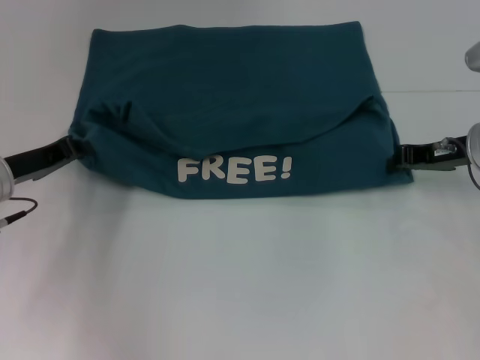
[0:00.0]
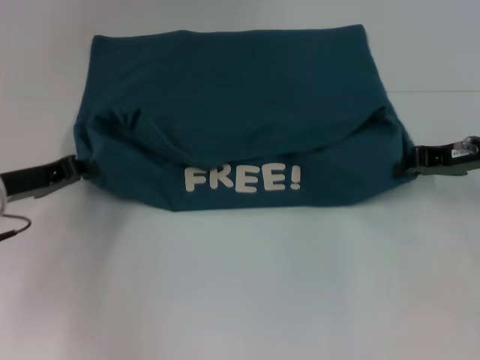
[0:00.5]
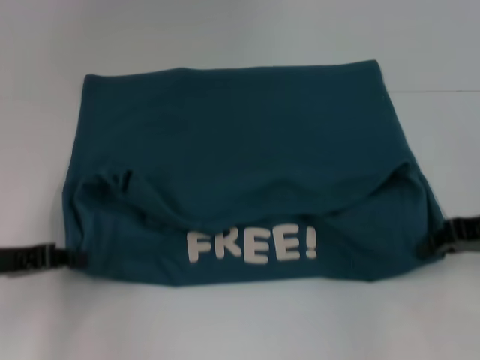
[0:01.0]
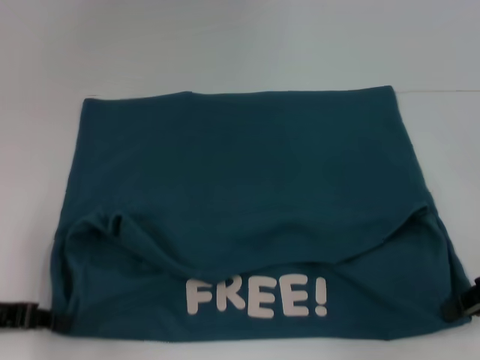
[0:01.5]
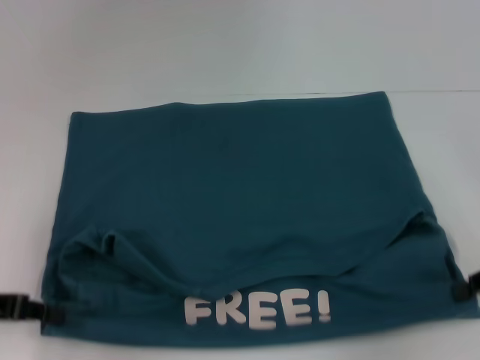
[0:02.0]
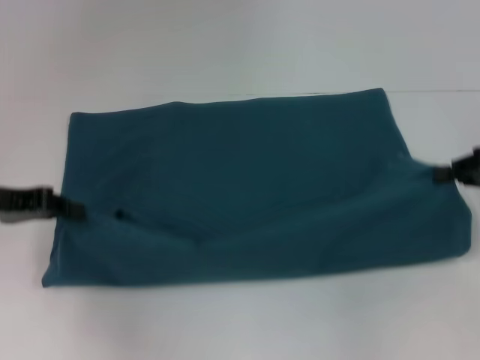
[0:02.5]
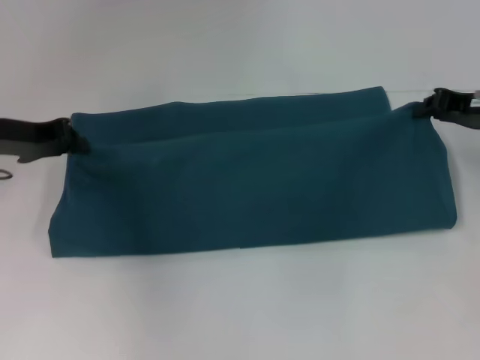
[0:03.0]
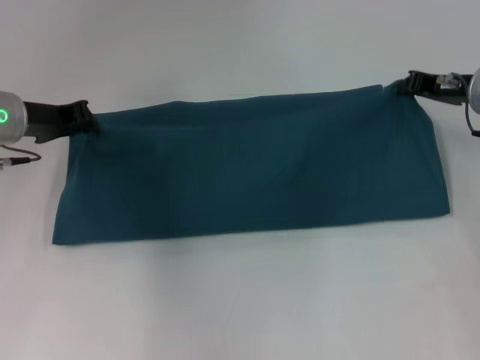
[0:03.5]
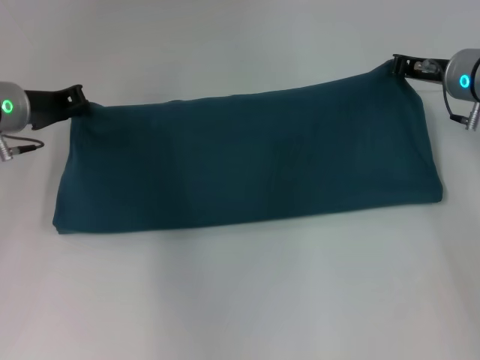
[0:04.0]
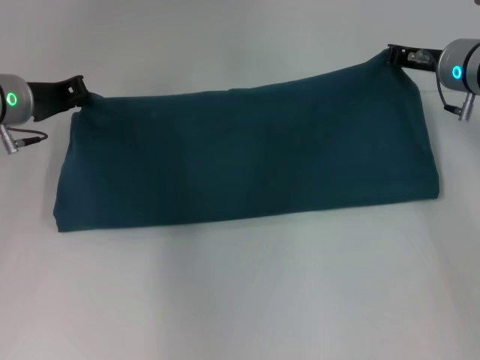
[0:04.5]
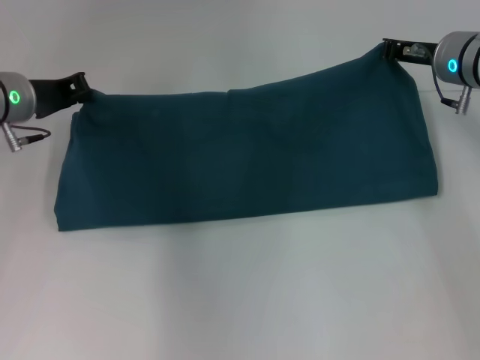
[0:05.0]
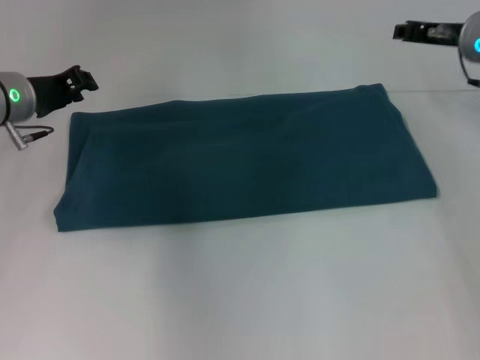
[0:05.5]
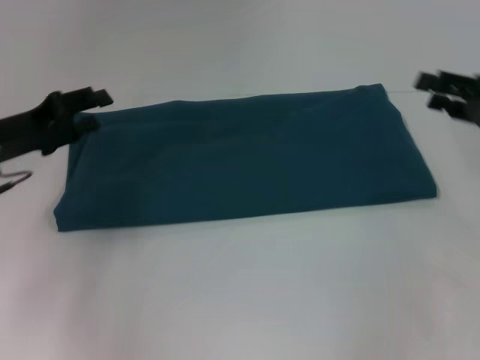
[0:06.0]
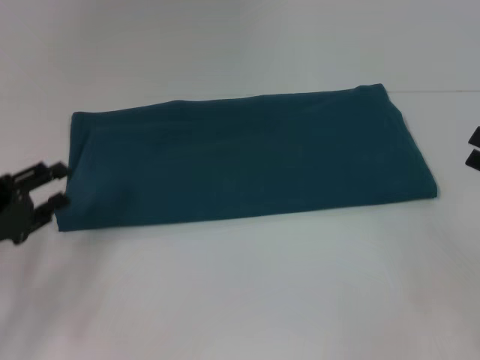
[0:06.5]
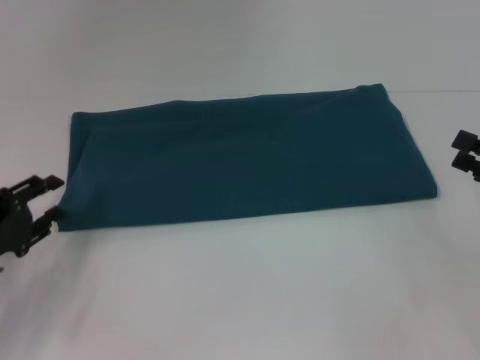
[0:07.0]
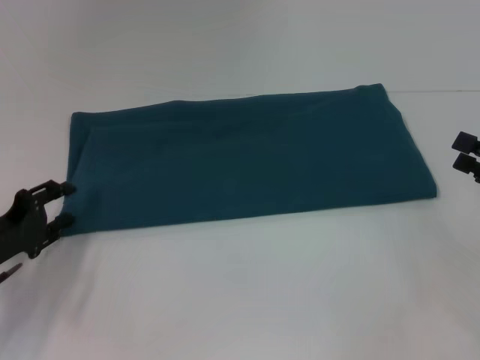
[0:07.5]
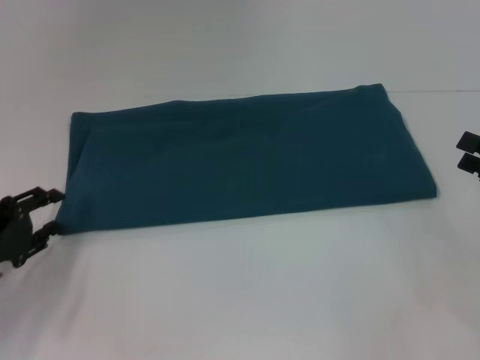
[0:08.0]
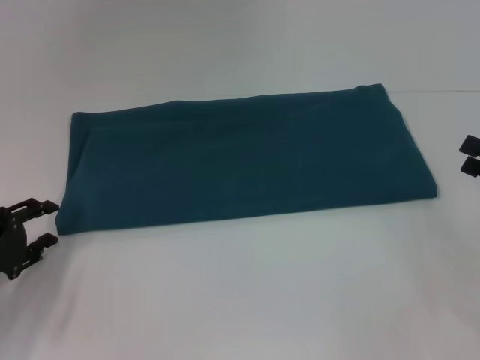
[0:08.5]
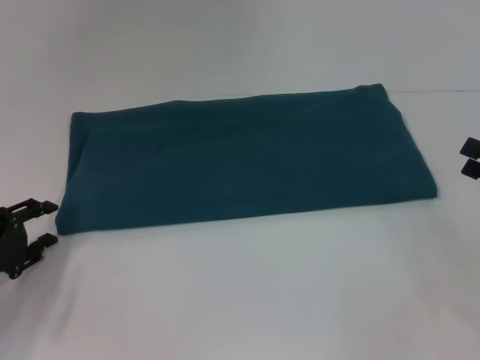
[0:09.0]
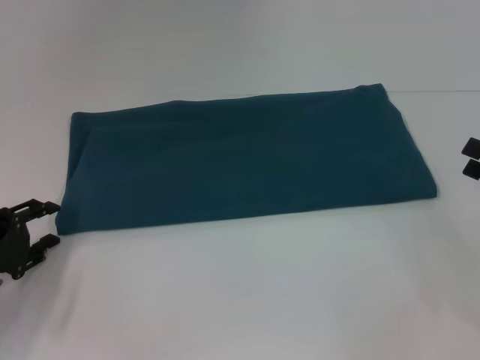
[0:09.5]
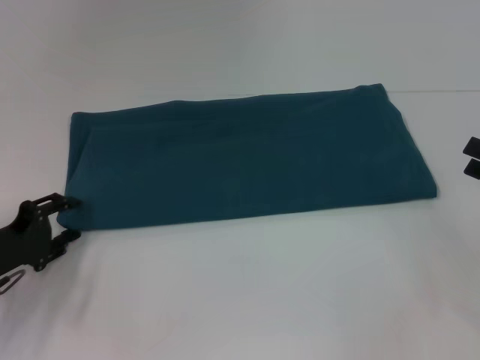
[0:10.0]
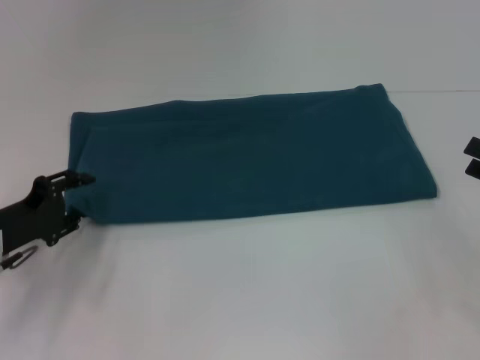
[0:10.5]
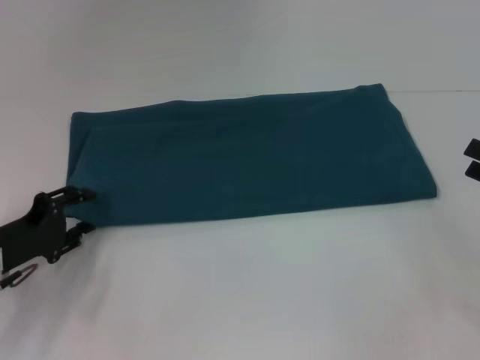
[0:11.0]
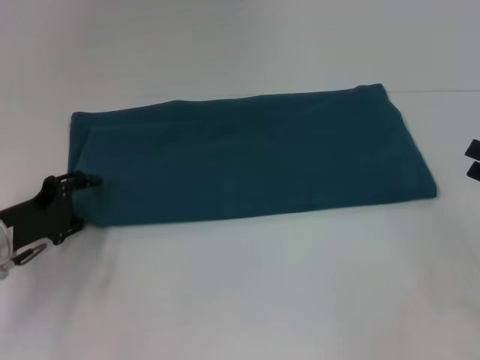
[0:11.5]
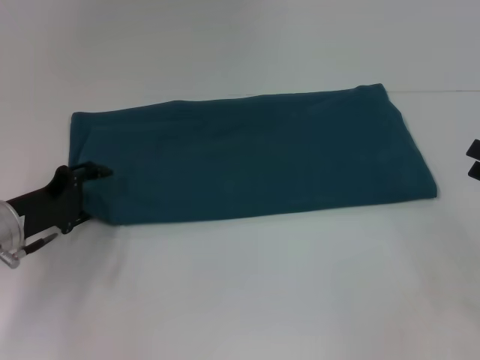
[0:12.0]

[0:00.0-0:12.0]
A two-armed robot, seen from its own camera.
Step, 0:02.0 to 0:05.0: Fold the clothes to the right.
0:00.0 to 0:02.0: The right gripper travels backward and to the right by roughly 15 cm. The left gripper travels backward by roughly 10 cm.
0:02.0 to 0:04.0: The right gripper shifts some 20 cm forward and to the left. Meanwhile the left gripper goes about 15 cm forward.
0:04.0 to 0:06.0: The right gripper is displaced backward and to the right by some 15 cm, and opens, while the left gripper heads backward, covering some 5 cm, and opens its fingers.
0:06.0 to 0:08.0: The right gripper moves backward, some 10 cm. Meanwhile the left gripper shifts roughly 10 cm backward and downward.
0:08.0 to 0:10.0: The grippers make only small movements.
0:10.0 to 0:12.0: The left gripper moves about 5 cm.

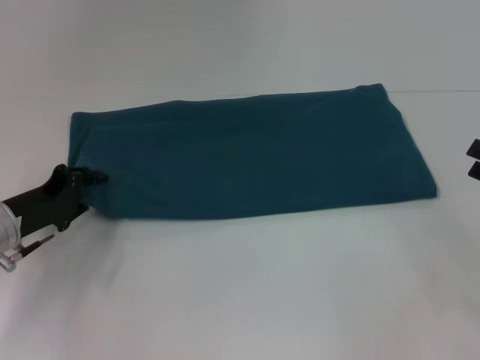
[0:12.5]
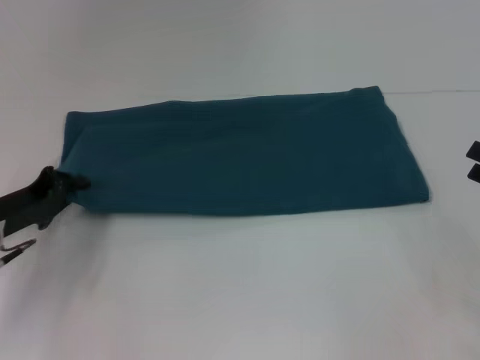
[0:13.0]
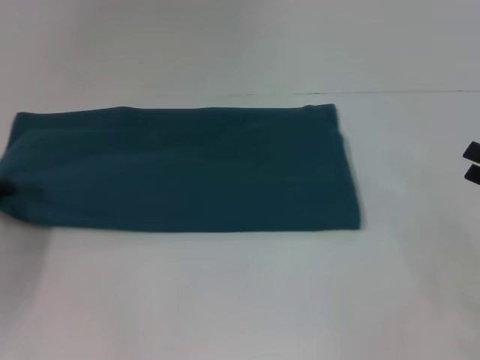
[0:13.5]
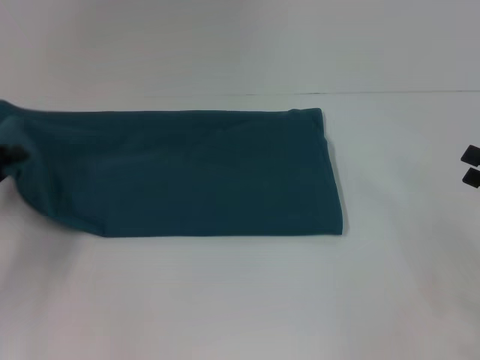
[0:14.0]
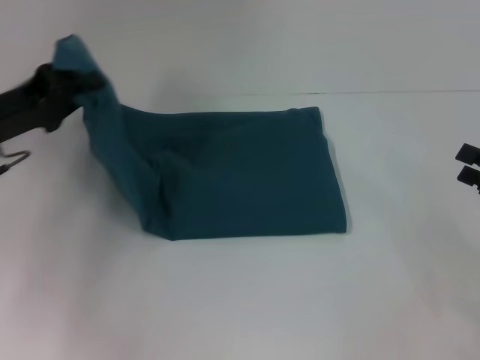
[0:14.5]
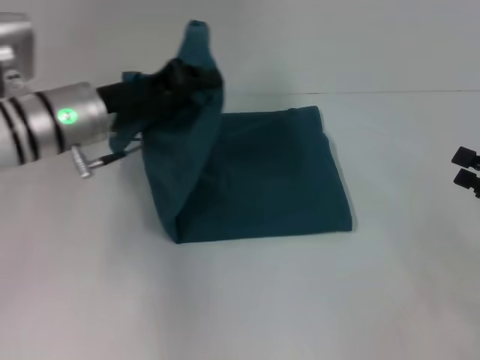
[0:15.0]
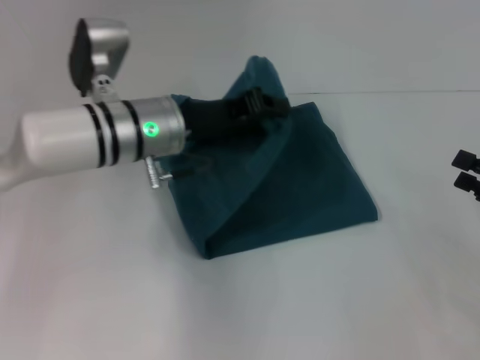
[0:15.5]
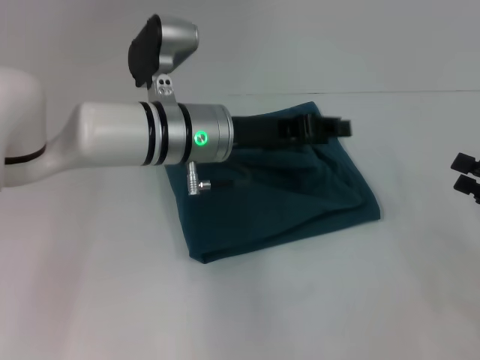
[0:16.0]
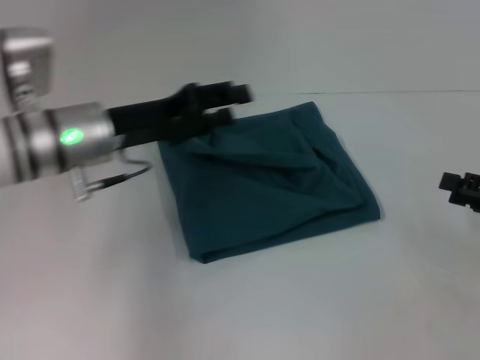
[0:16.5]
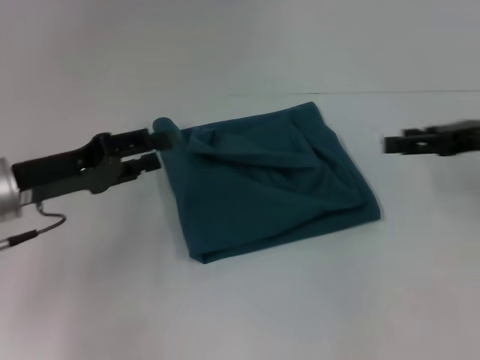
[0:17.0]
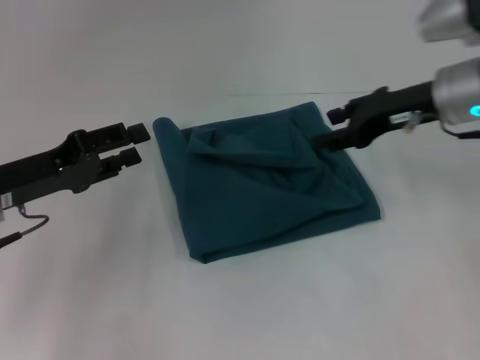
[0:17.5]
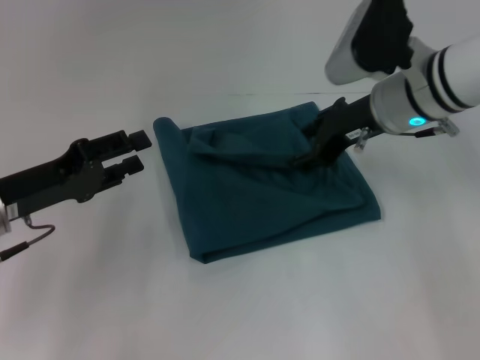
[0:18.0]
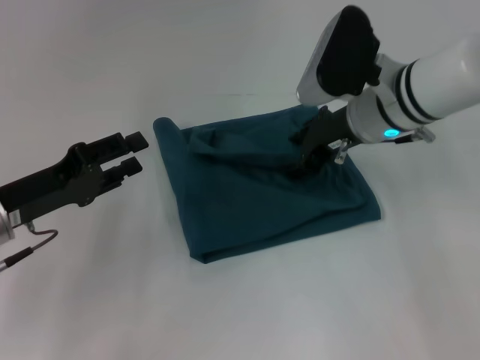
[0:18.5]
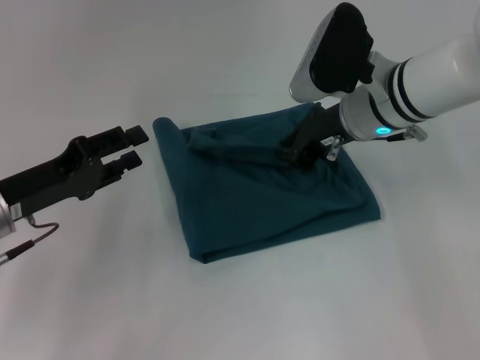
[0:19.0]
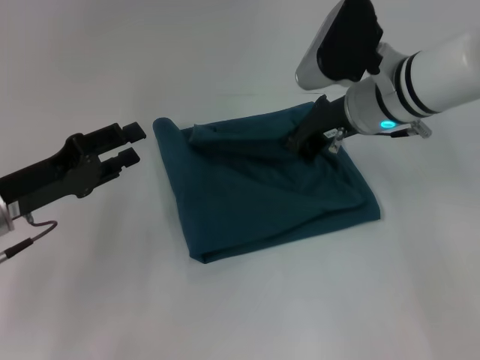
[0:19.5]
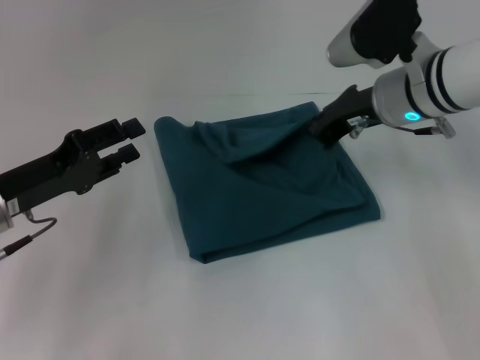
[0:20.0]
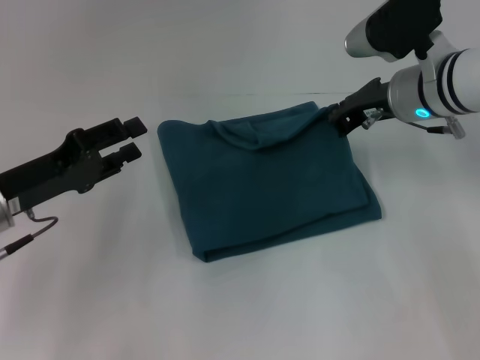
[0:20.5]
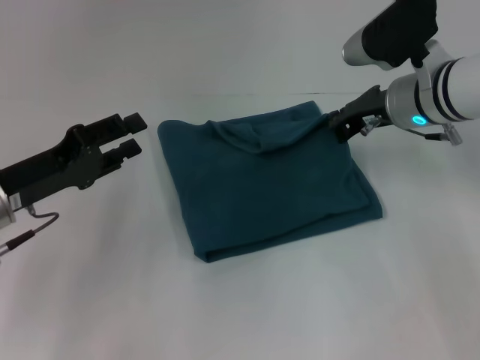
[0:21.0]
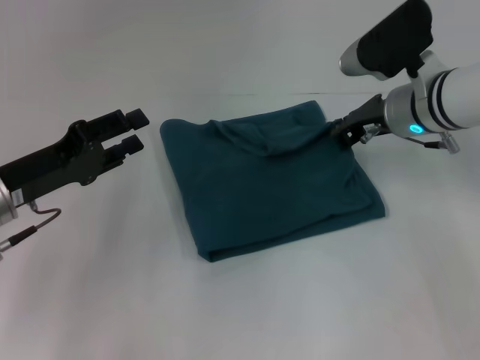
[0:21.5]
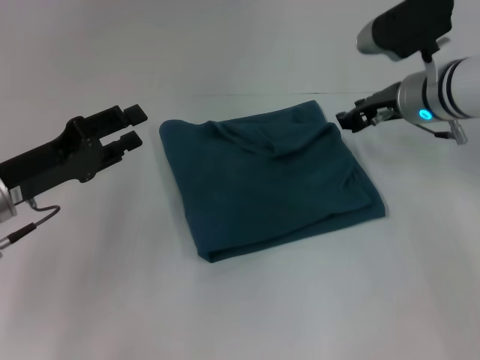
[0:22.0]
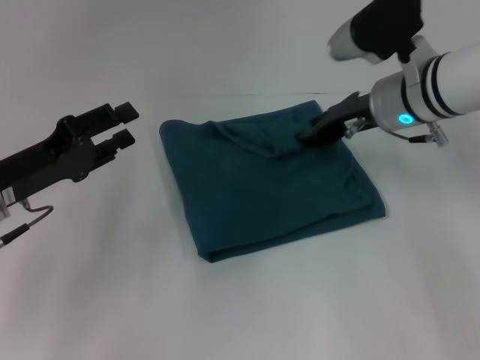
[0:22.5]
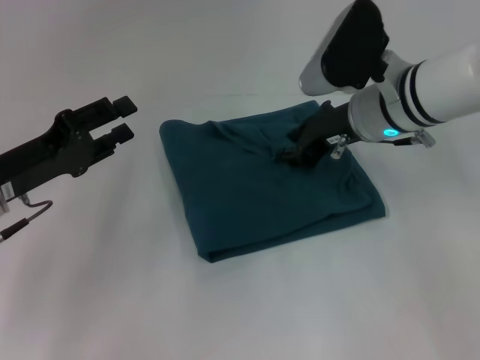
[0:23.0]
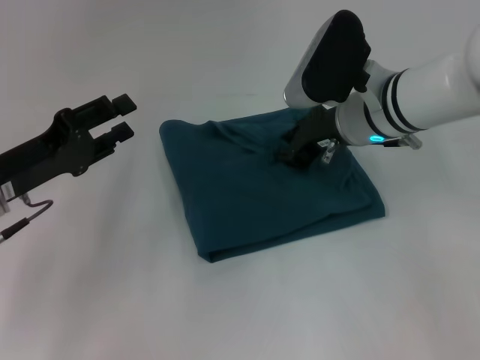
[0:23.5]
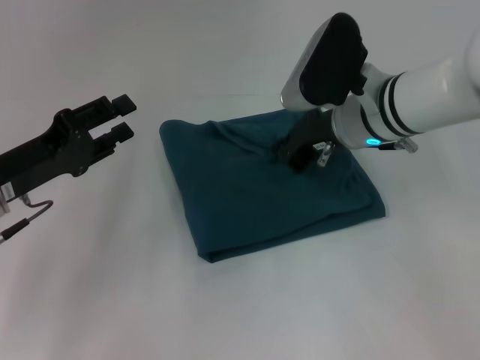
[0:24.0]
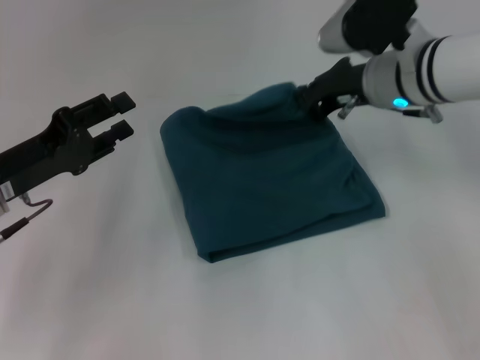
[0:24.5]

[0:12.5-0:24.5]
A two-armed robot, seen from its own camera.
Step, 0:12.5 to 0:15.5: Fold the clothes to the left.
0:12.5 to 0:14.5: The left gripper goes about 10 cm upward, and closes its fingers.
0:14.5 to 0:16.5: The left gripper is displaced to the right by some 10 cm, and opens up.
0:16.5 to 0:18.5: The right gripper shifts about 25 cm to the left and forward. Meanwhile the left gripper travels to the left and backward by approximately 10 cm.
0:18.5 to 0:20.5: The right gripper closes its fingers.
0:20.5 to 0:22.5: The right gripper opens.
0:22.5 to 0:24.5: The right gripper closes its fingers.

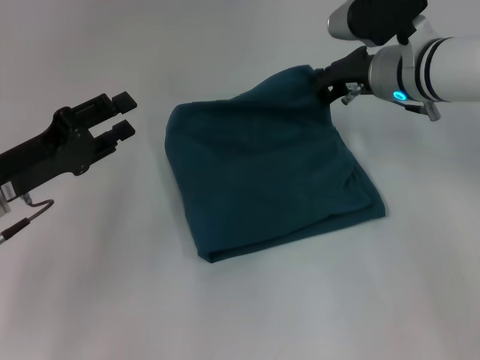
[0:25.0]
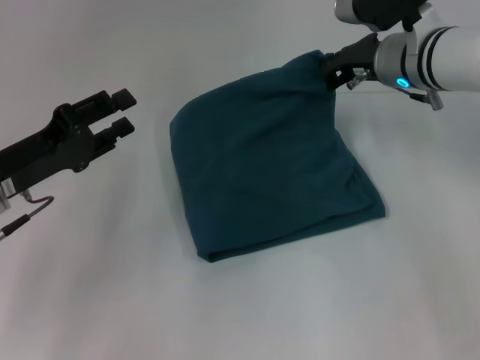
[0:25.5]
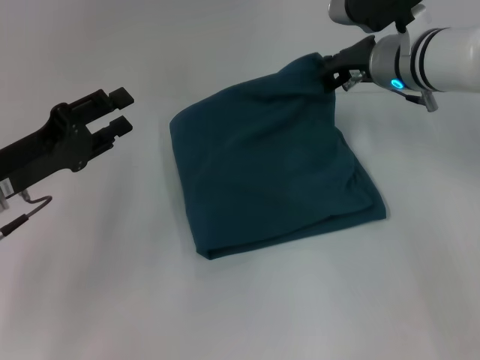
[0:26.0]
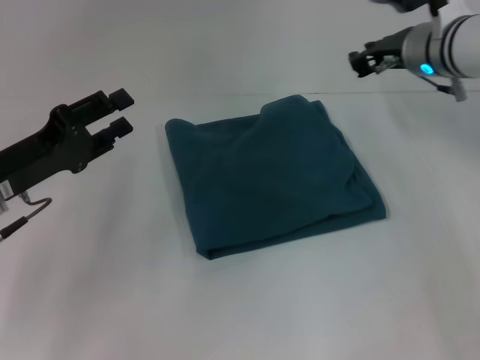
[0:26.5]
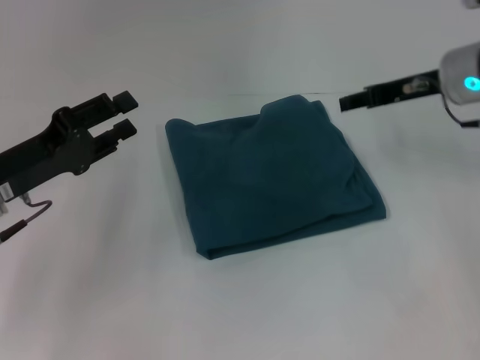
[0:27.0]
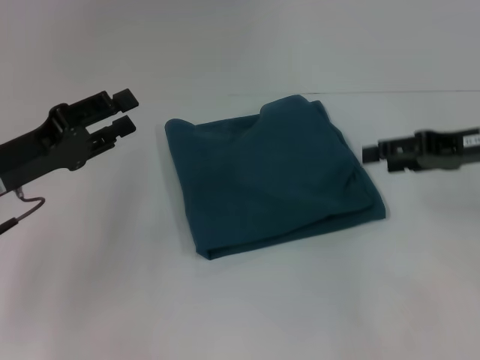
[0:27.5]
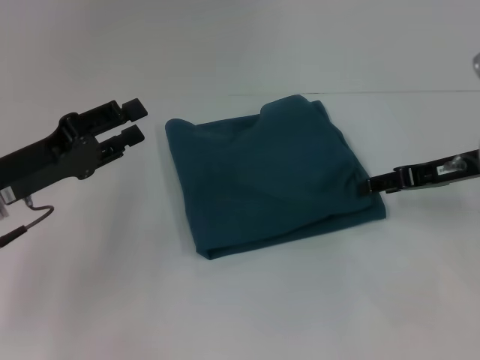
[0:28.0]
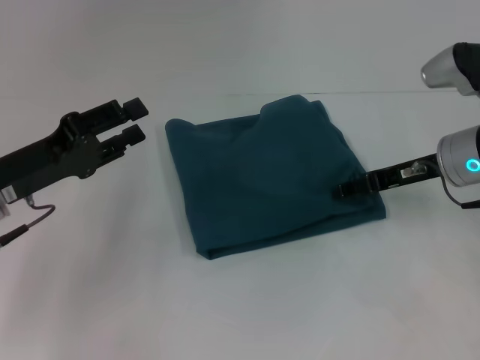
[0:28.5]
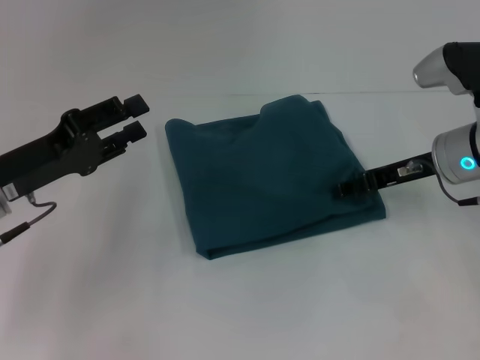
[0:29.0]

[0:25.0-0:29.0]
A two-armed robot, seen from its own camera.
0:25.0 to 0:27.0: The right gripper goes about 5 cm to the right, and opens up.
0:27.0 to 0:29.0: The right gripper is displaced downward by some 5 cm.
